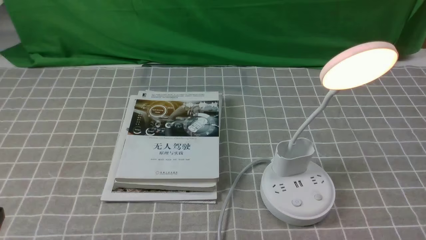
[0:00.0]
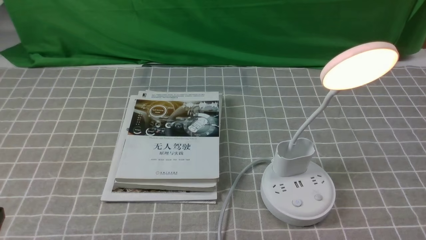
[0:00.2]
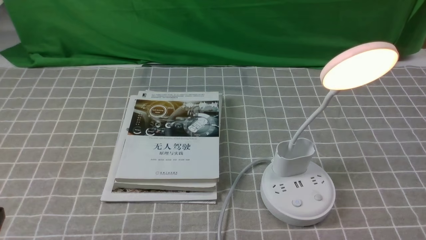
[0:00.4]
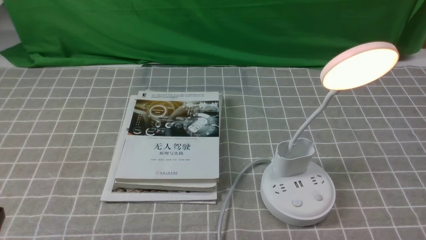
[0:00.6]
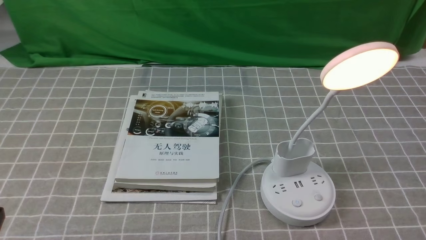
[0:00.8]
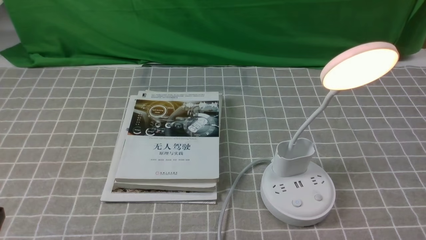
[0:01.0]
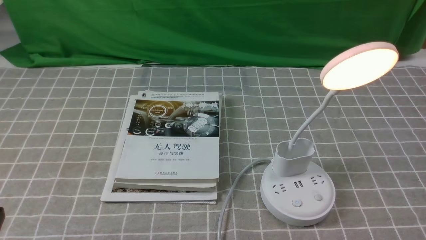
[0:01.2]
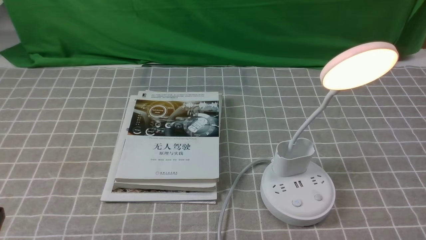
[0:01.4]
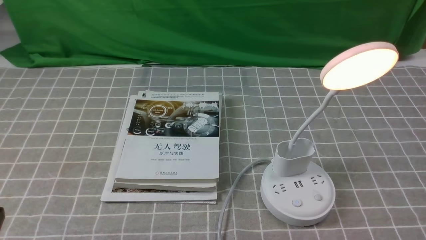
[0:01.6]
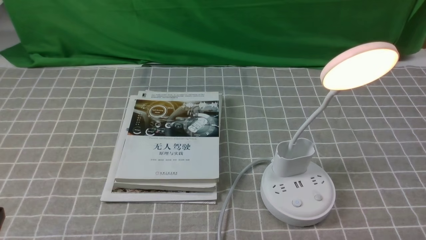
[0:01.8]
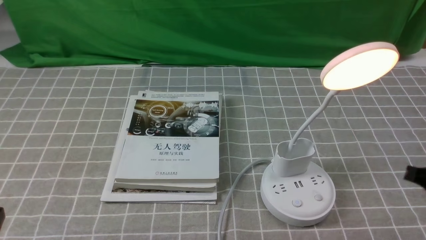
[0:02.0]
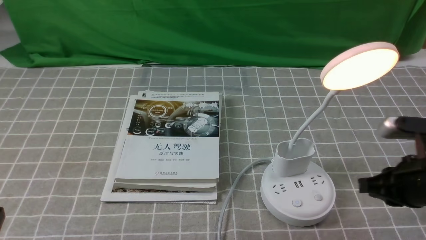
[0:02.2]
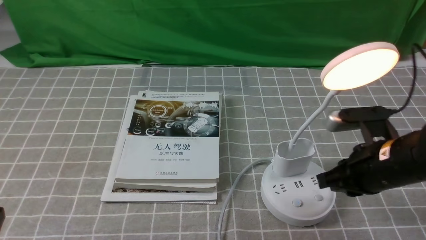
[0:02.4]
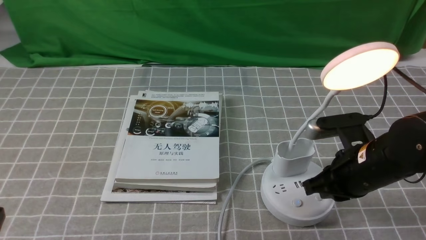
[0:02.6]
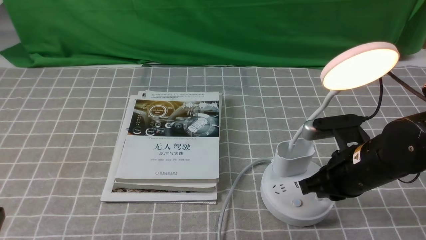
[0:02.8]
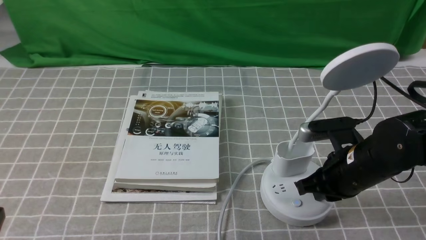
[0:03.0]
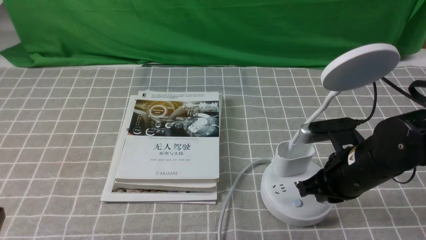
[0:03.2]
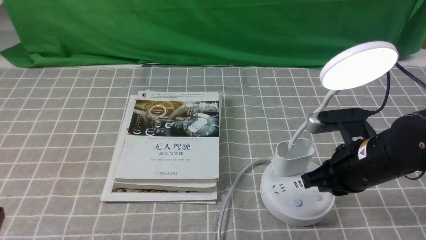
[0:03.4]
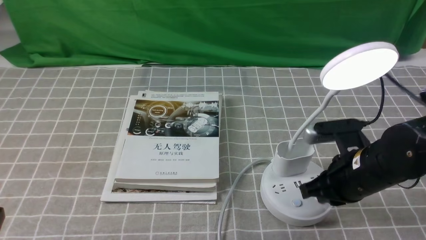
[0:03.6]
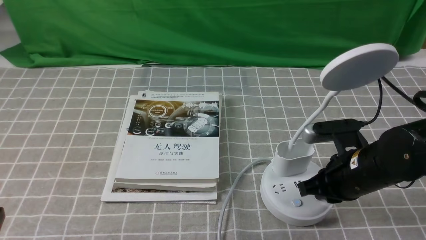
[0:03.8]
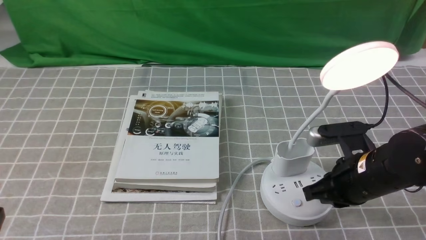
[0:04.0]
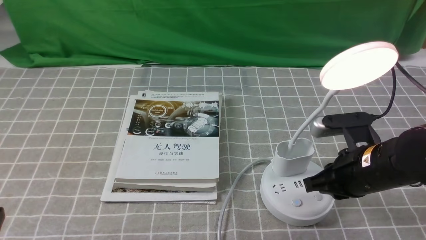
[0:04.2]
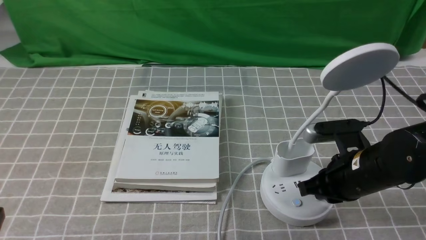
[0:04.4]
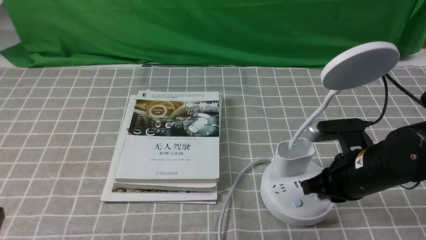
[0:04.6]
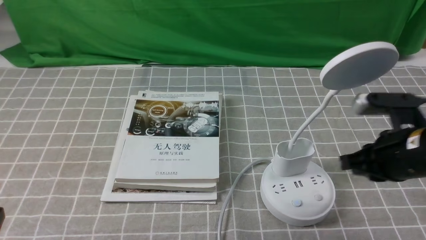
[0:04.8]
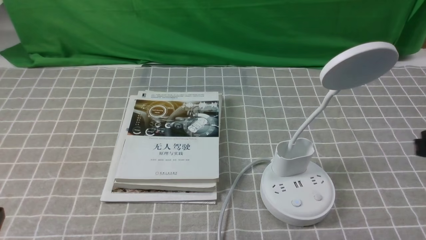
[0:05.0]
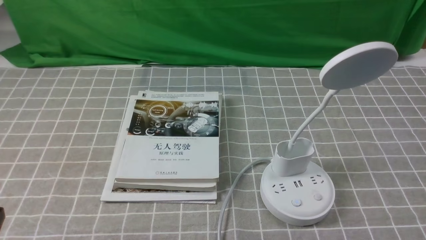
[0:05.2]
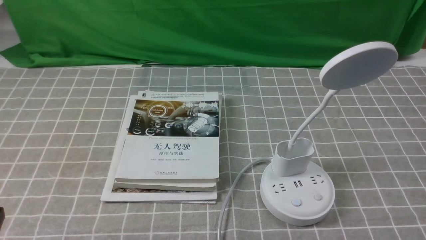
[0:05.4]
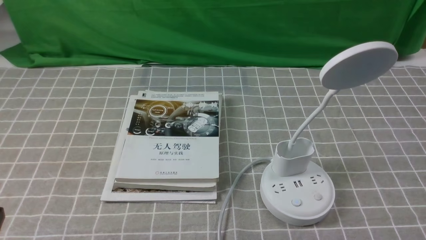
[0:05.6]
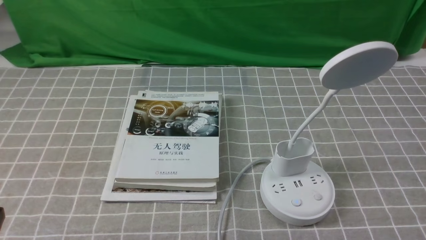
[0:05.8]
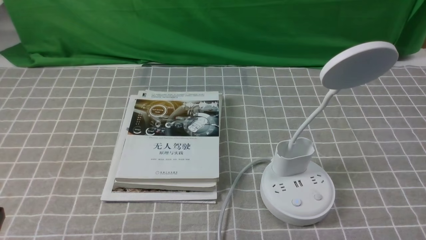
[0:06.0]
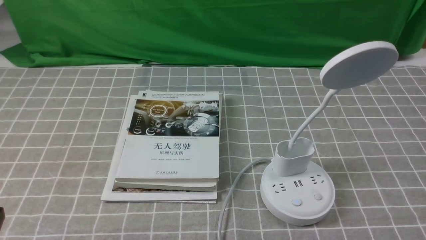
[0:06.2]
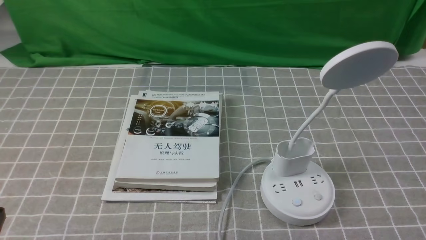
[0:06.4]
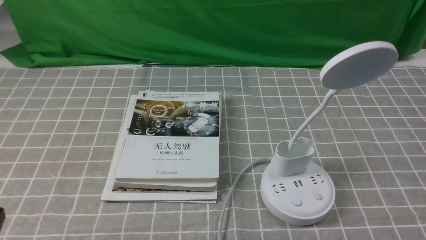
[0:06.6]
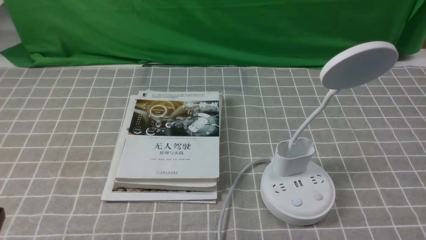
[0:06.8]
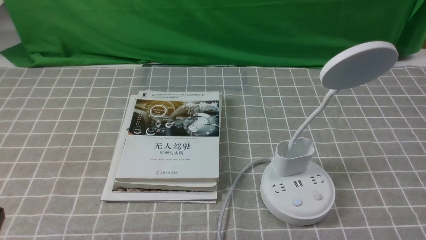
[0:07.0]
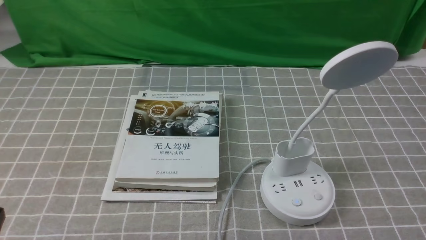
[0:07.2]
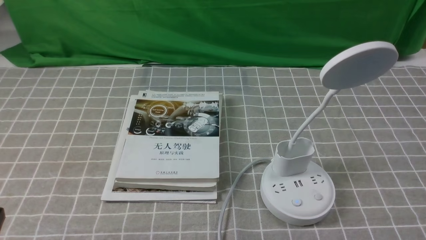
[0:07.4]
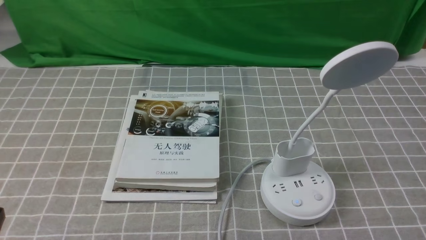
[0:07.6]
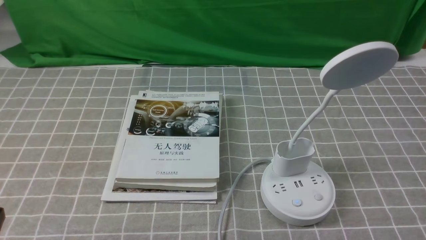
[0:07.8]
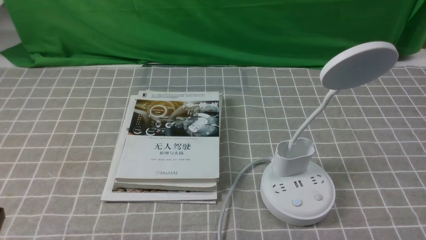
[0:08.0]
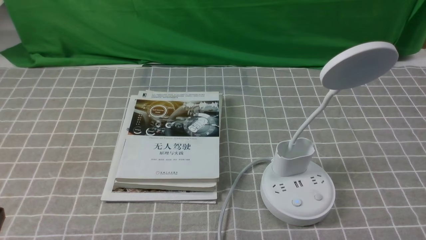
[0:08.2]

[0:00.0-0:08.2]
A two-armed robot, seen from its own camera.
Task of the whole recording: turn off the desk lamp on the grey coffee tablecloth by hand.
Step, 0:00.0 to 0:04.6: use the right arm to press the button switch on the lamp holder.
0:01.6 to 0:03.2: The right gripper travels to the left, forward and downward by roughly 20 cm.
0:03.2 to 0:05.0: The right gripper travels upward, to the right and backward by about 15 cm.
0:06.6 to 0:08.2: The two grippers keep their place.
